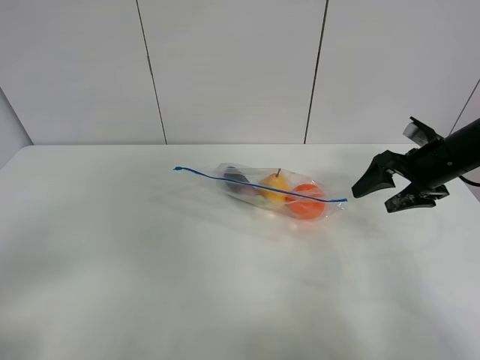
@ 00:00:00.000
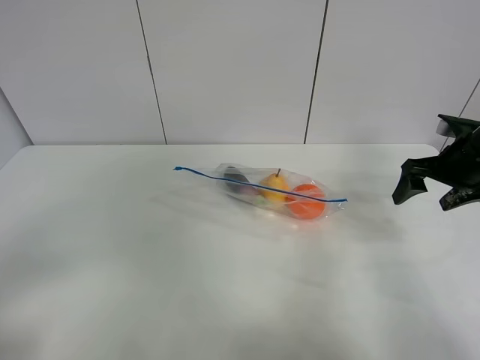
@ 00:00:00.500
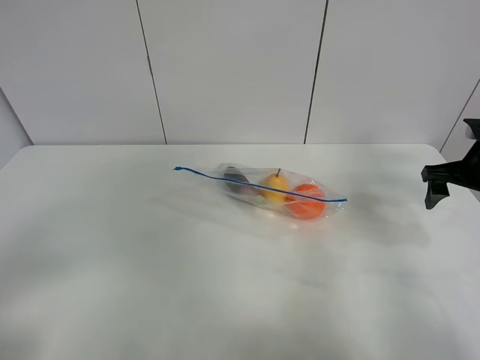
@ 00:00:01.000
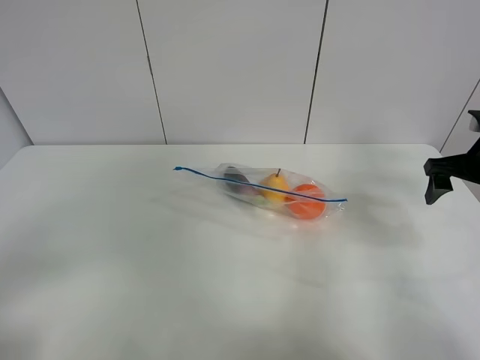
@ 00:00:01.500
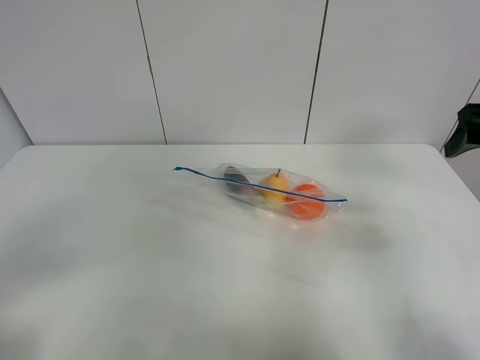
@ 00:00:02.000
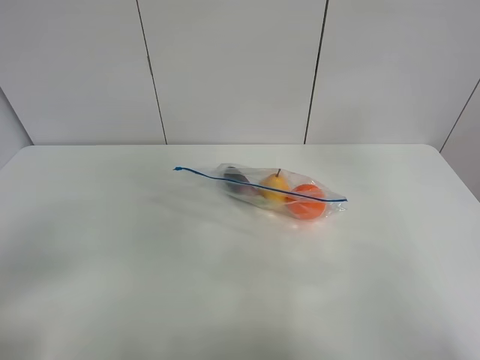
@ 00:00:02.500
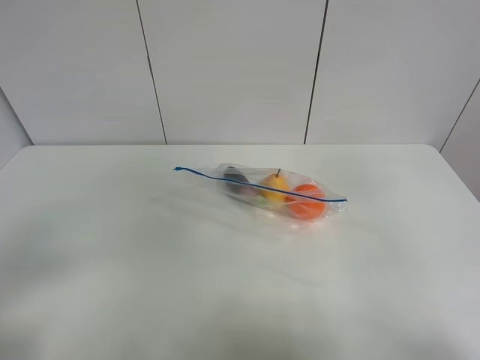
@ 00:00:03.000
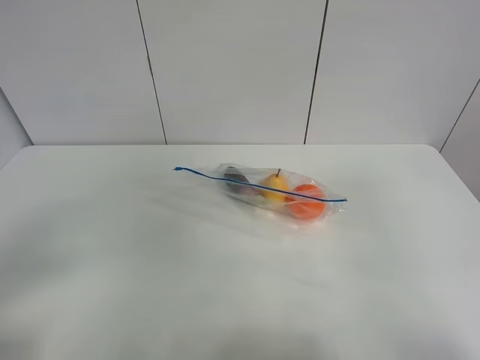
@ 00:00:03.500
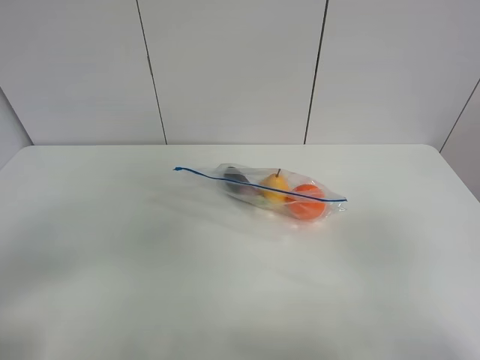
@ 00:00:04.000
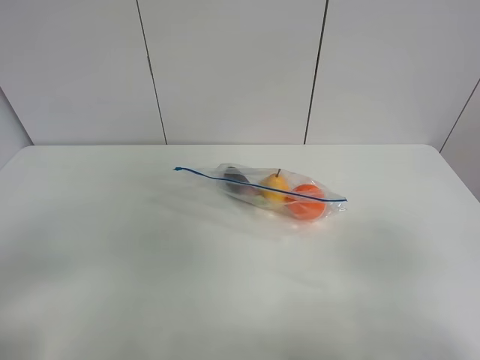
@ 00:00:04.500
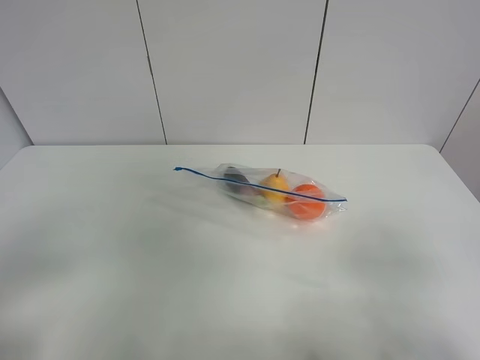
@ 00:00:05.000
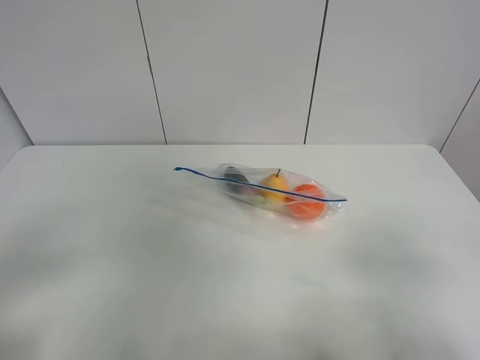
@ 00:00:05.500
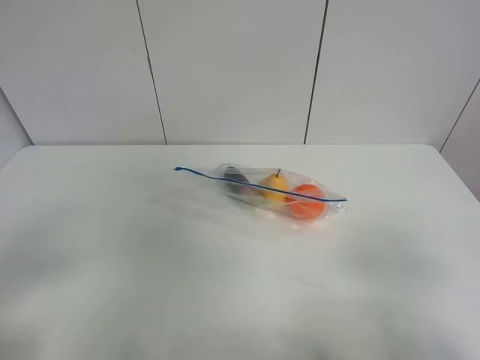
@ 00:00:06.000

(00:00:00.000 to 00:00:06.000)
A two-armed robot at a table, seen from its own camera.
00:00:00.000 - 00:00:02.000: The right gripper moves upward and backward, some 15 cm.
00:00:02.000 - 00:00:04.000: The right gripper is displaced backward by roughly 30 cm.
